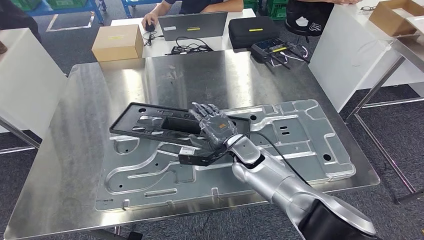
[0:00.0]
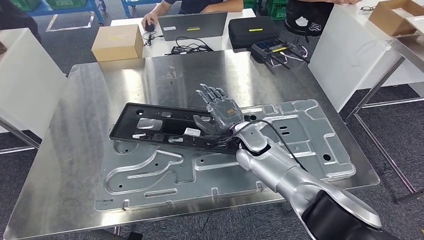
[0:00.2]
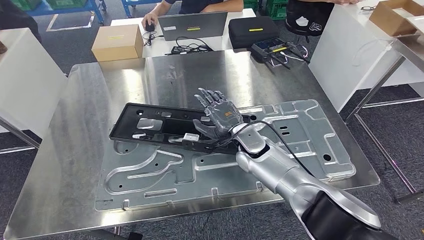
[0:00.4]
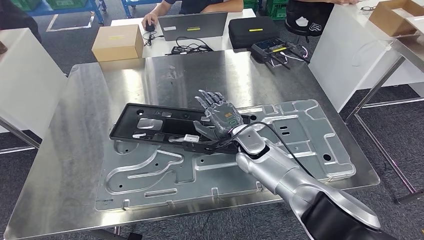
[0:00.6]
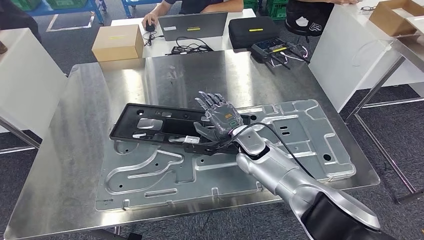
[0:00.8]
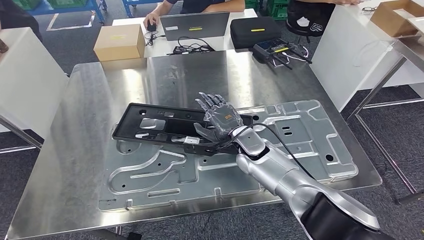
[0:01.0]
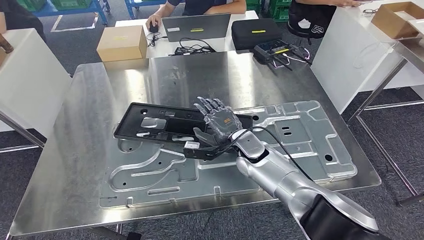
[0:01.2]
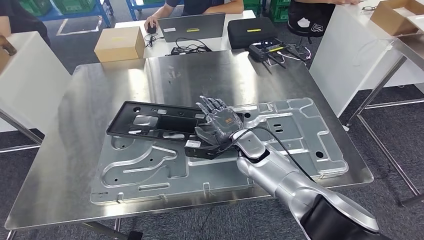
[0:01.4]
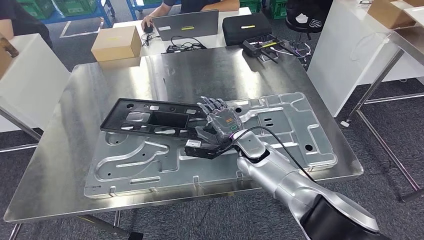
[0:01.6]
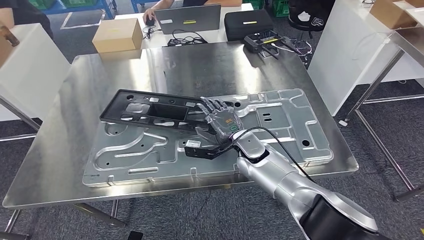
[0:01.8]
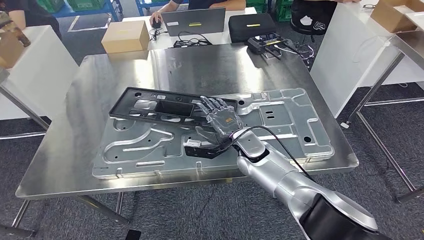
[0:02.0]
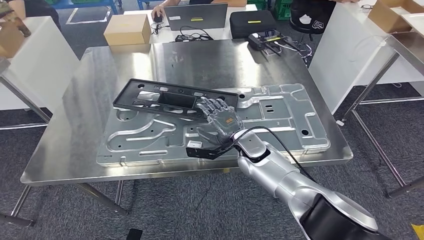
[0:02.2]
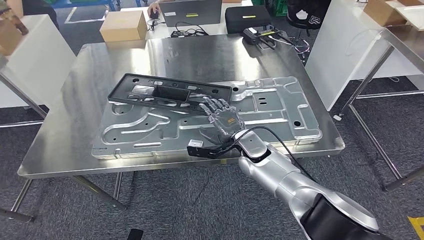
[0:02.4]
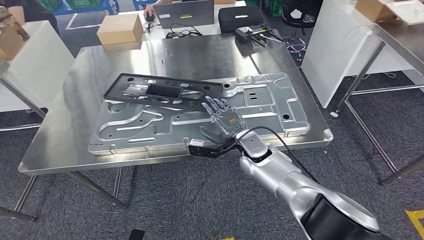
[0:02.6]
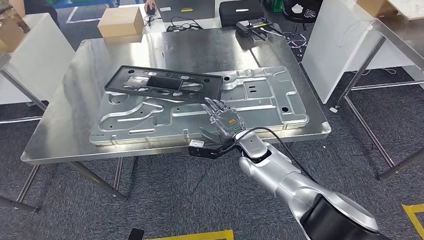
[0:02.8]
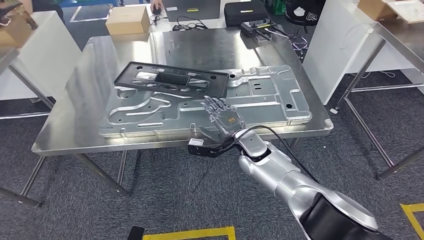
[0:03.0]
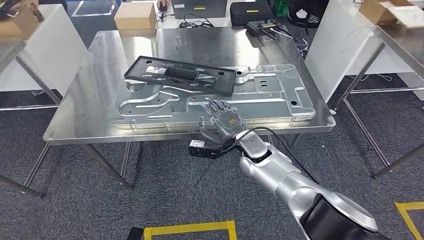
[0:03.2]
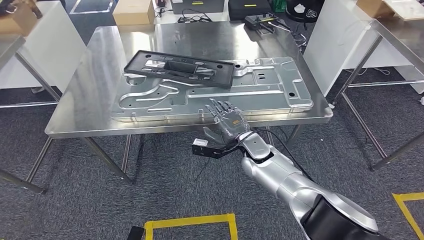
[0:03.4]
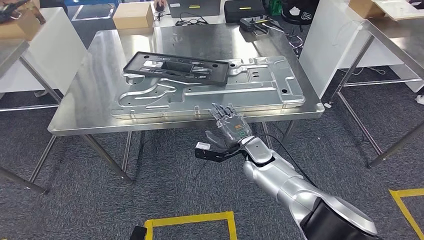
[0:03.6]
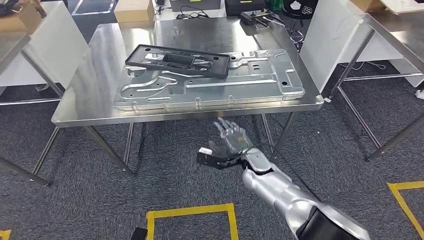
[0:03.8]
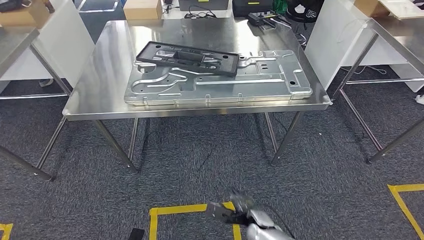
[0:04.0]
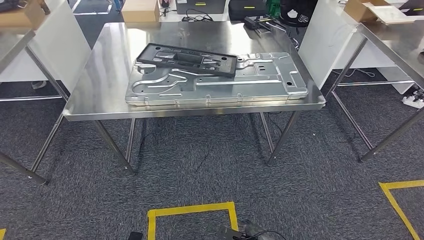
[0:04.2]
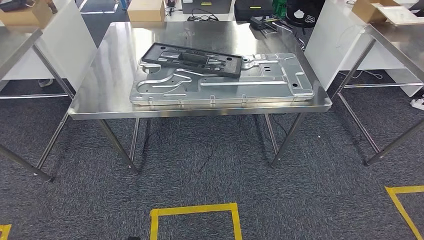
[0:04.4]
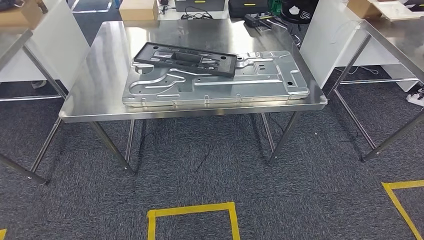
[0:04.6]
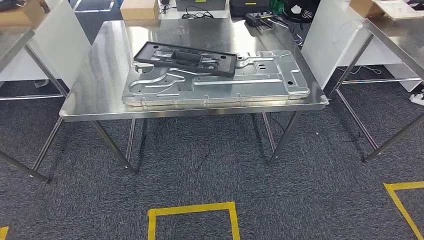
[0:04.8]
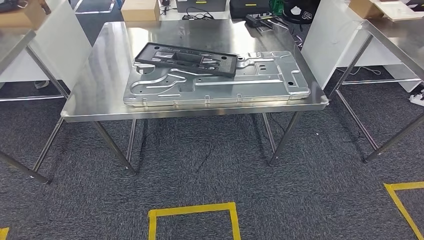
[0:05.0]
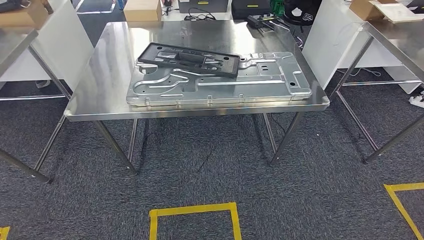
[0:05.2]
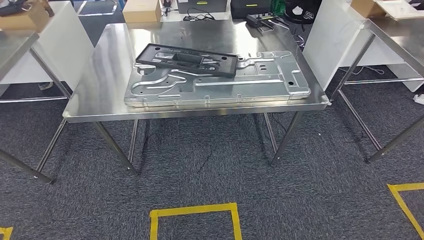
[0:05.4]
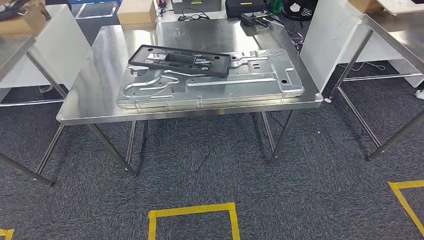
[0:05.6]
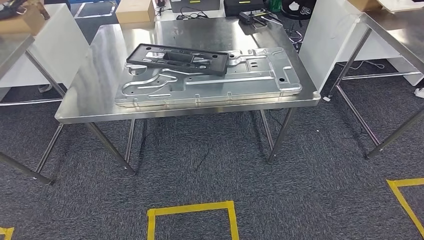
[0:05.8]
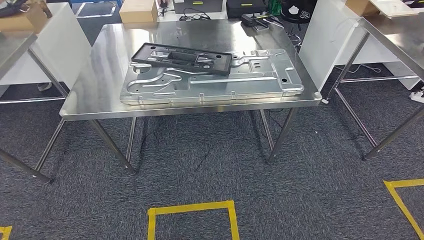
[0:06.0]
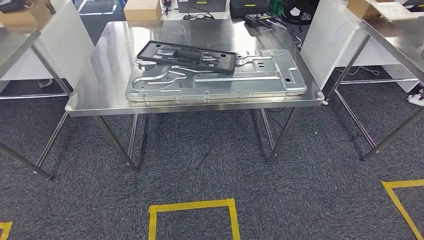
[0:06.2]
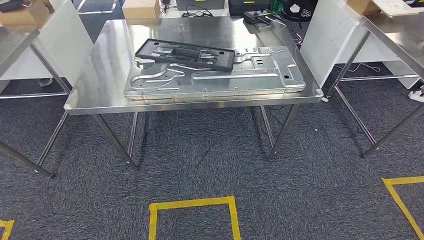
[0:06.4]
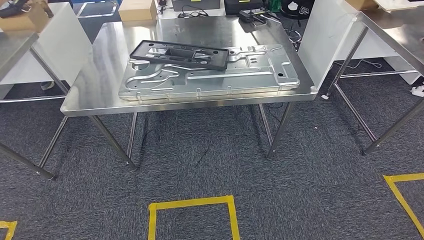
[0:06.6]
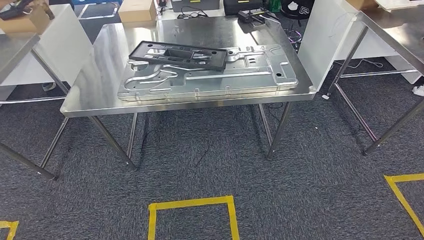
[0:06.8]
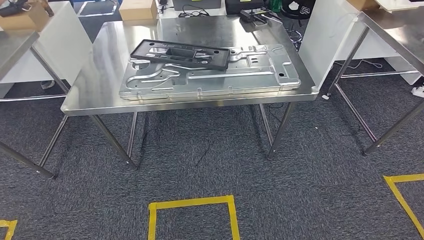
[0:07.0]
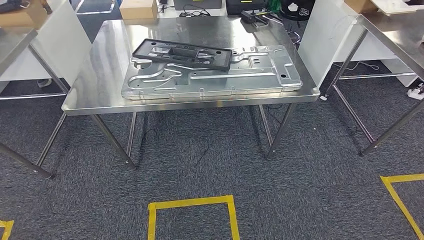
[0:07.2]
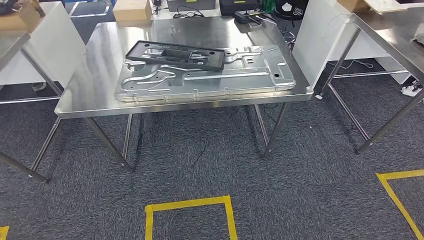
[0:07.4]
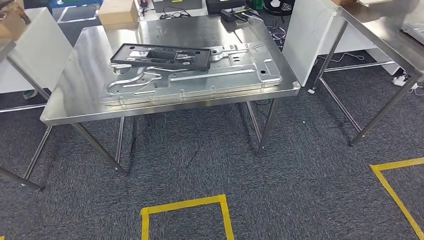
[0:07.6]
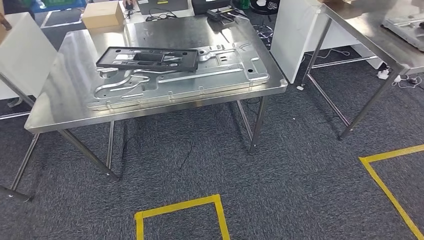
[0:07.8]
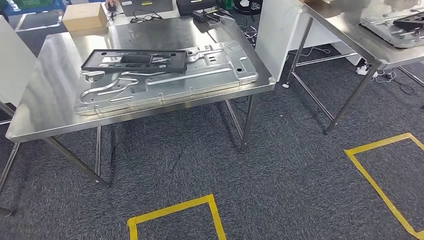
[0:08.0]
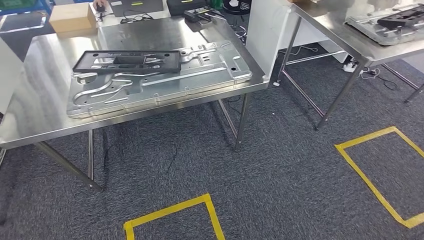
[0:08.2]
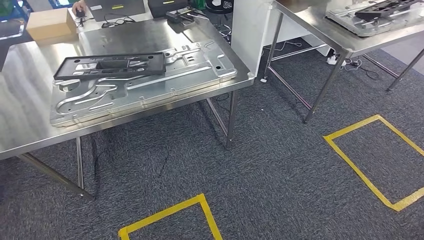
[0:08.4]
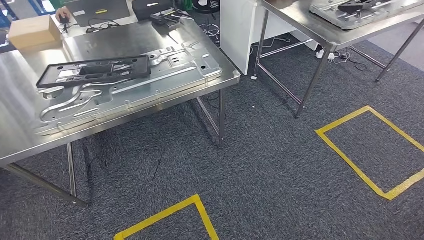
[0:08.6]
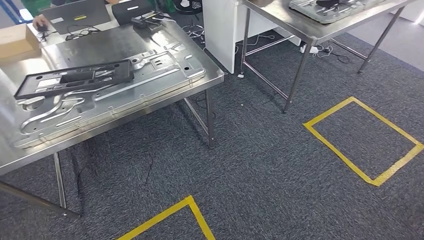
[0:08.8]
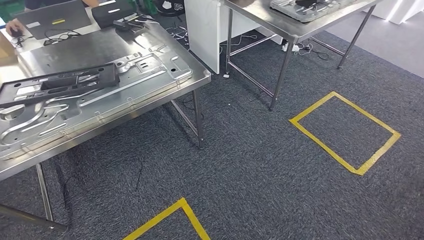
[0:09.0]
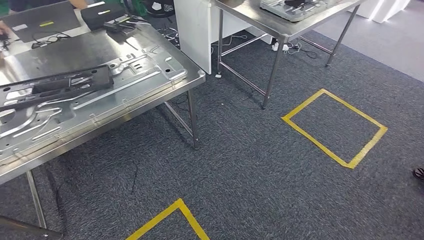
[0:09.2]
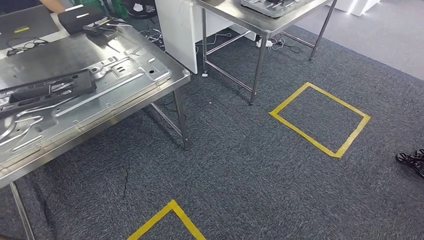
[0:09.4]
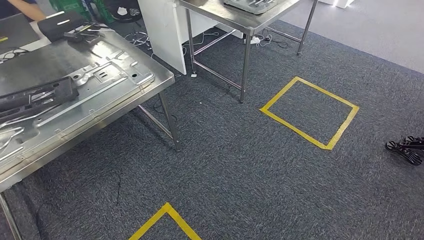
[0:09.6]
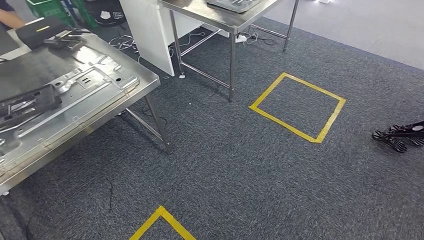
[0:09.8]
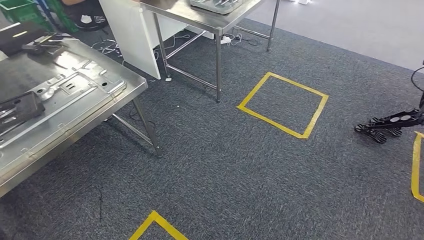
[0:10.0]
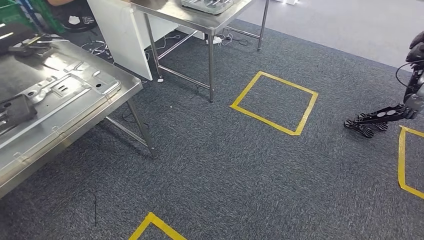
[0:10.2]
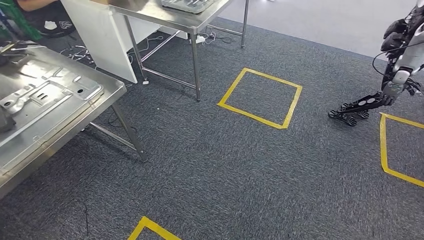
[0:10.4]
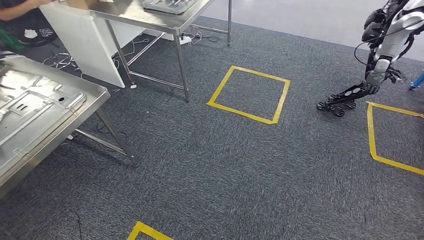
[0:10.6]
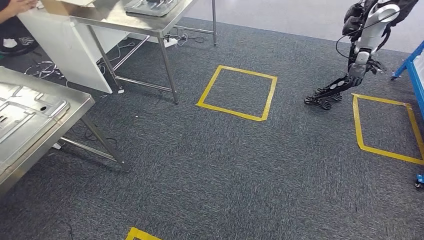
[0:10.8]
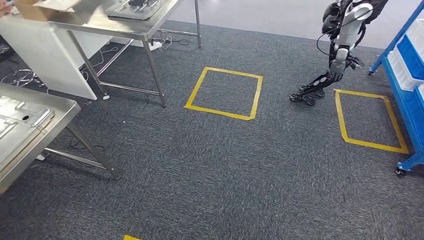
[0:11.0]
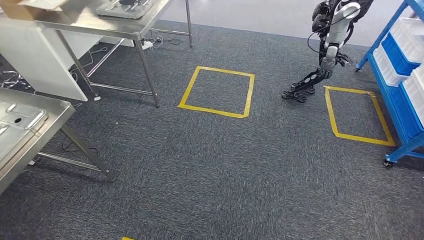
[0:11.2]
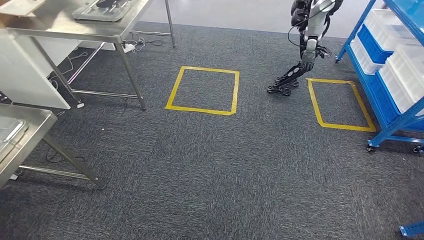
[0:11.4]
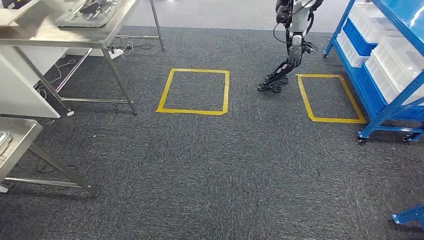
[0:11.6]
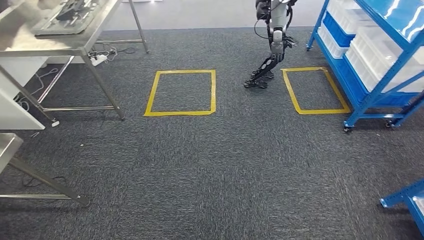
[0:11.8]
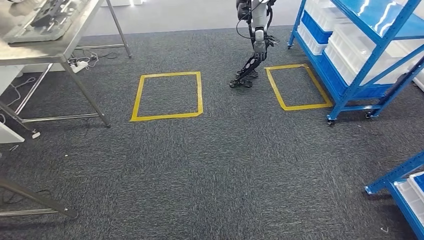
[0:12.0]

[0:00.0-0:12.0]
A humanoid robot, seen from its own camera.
Step, 0:00.0 to 0:05.0: Insert the large material into the corresponding slot on the workbench.

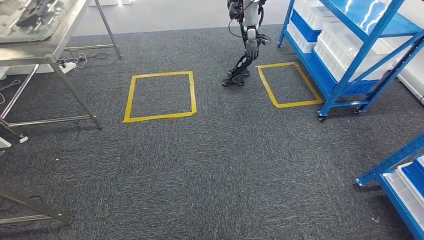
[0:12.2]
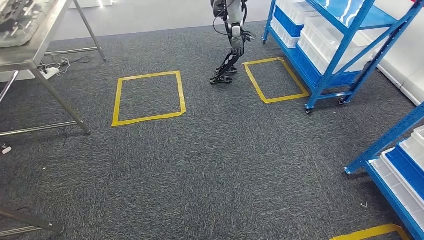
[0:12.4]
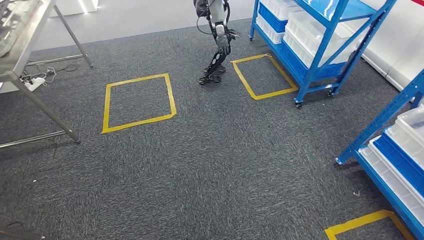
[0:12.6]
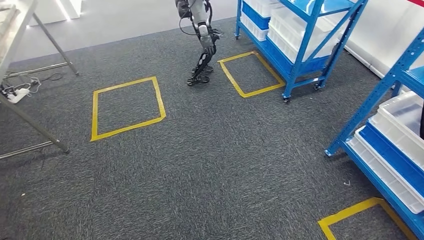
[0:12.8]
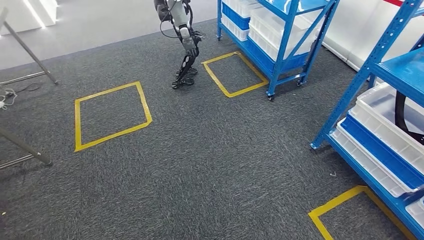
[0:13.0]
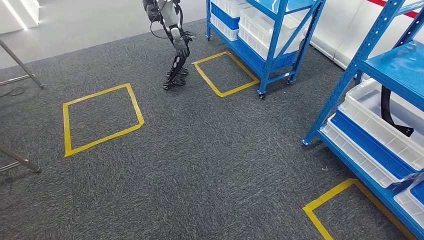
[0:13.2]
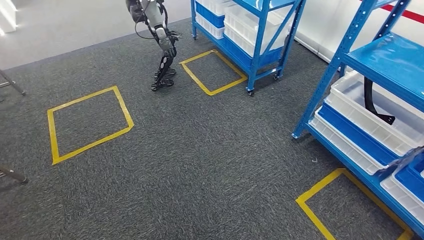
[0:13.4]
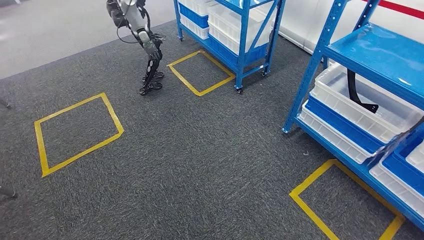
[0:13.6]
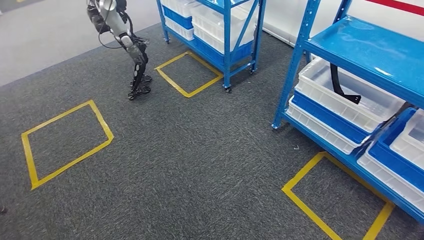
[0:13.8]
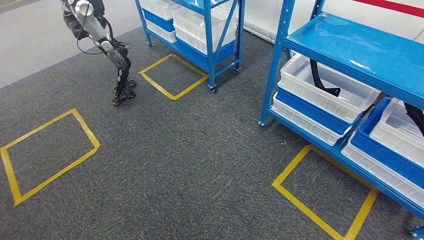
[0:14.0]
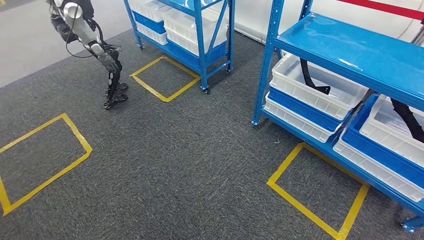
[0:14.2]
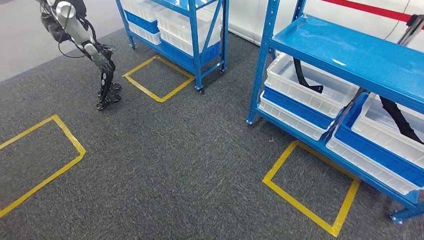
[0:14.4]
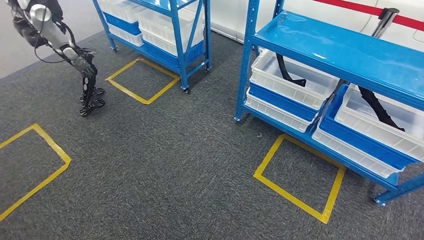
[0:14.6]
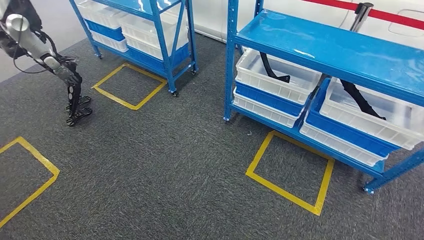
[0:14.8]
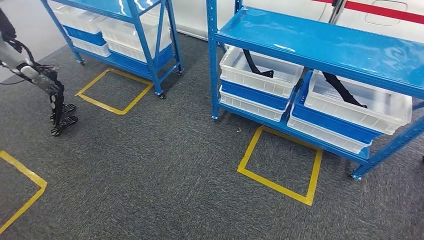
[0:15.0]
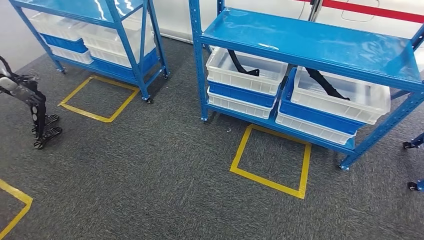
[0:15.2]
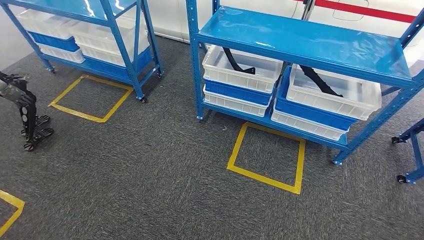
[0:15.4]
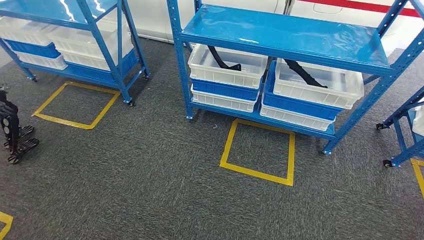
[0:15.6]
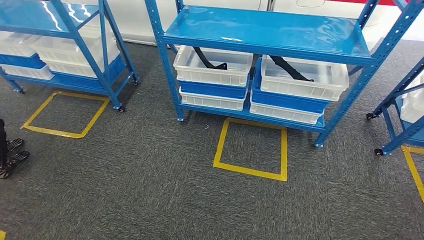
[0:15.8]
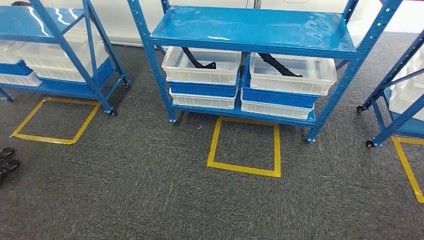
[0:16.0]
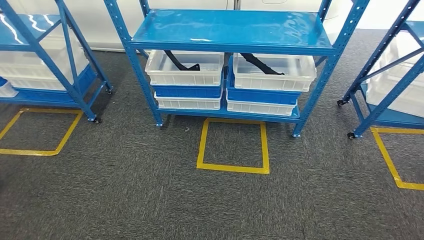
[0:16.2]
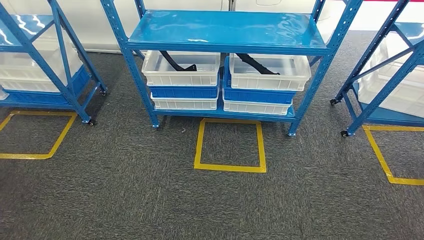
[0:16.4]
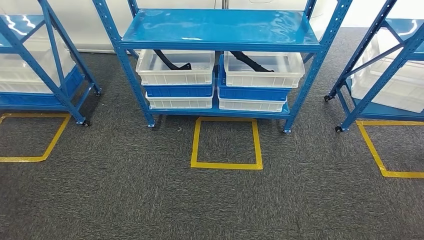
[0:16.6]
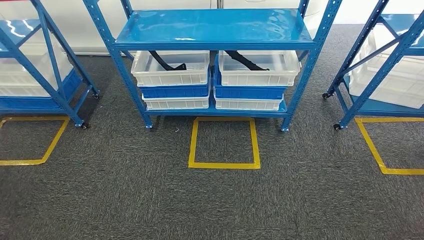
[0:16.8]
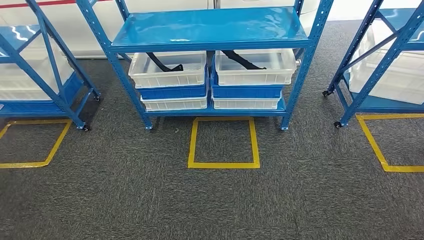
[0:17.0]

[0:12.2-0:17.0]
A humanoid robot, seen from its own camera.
Step, 0:12.2 to 0:16.8: Move to the initial position of the shelf.
